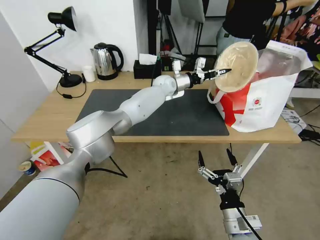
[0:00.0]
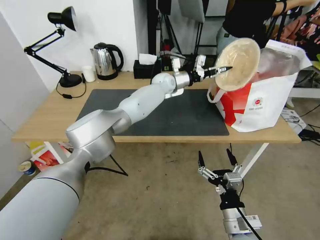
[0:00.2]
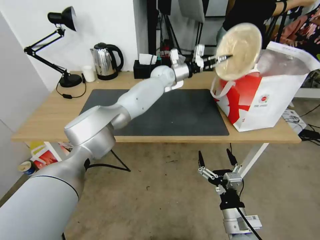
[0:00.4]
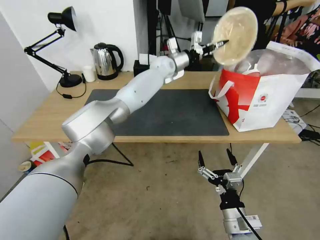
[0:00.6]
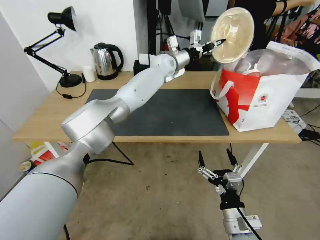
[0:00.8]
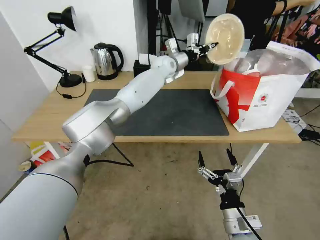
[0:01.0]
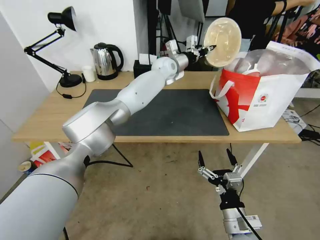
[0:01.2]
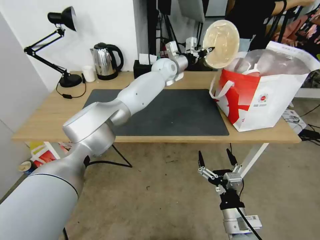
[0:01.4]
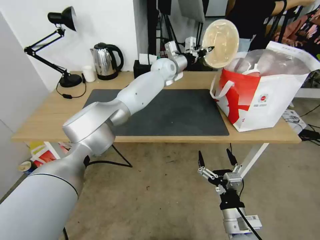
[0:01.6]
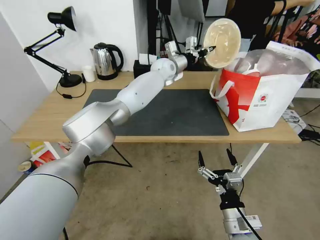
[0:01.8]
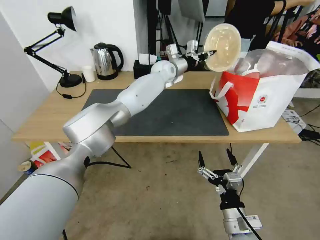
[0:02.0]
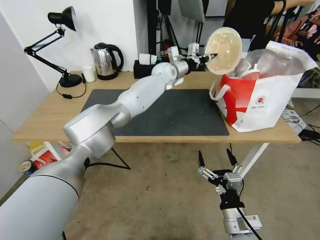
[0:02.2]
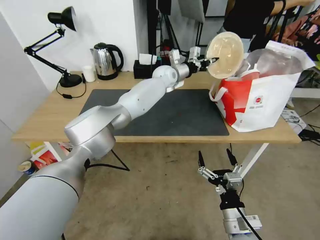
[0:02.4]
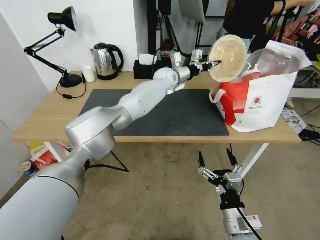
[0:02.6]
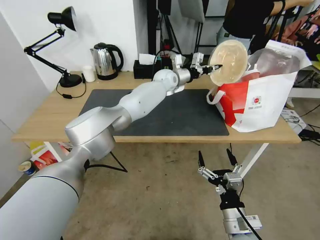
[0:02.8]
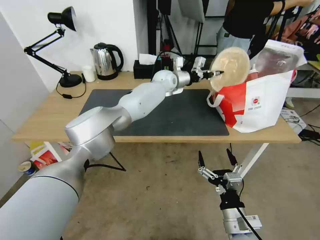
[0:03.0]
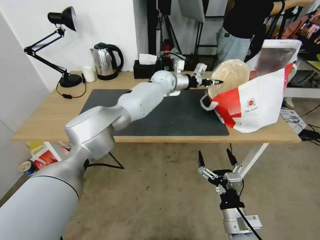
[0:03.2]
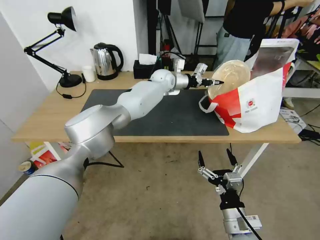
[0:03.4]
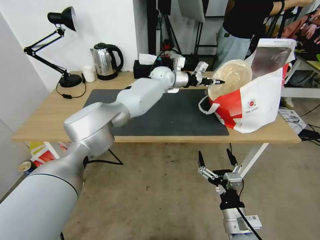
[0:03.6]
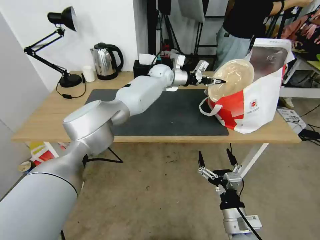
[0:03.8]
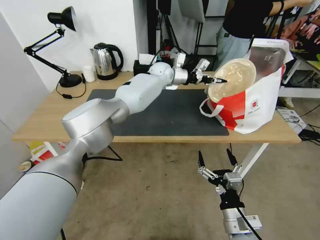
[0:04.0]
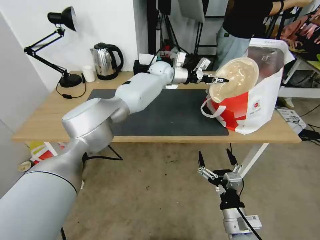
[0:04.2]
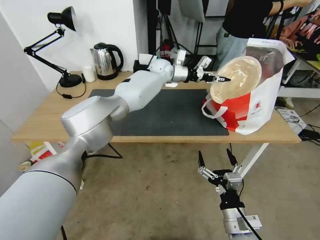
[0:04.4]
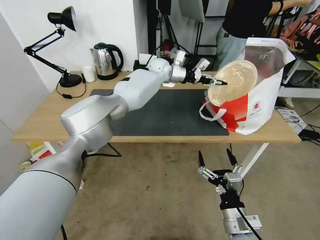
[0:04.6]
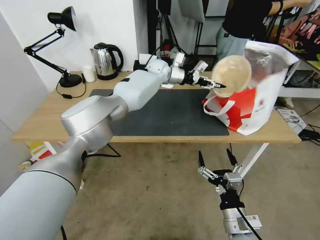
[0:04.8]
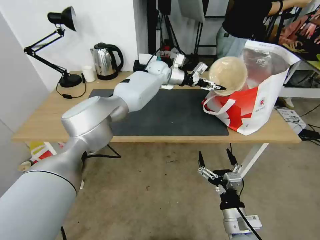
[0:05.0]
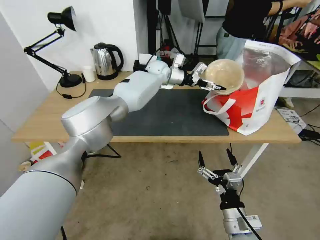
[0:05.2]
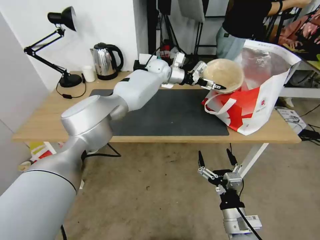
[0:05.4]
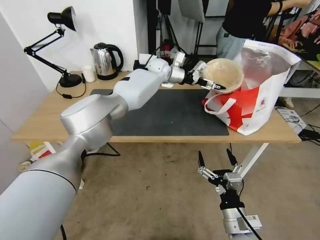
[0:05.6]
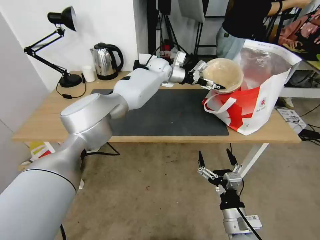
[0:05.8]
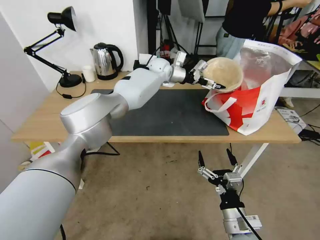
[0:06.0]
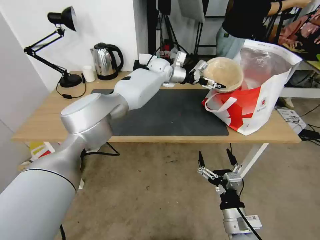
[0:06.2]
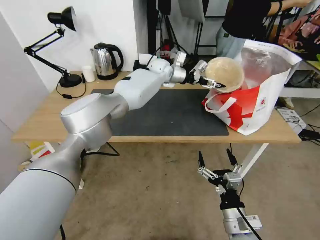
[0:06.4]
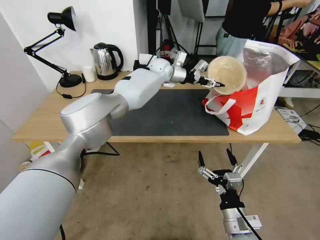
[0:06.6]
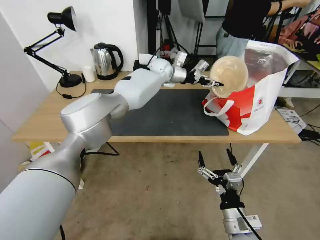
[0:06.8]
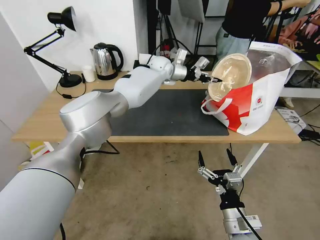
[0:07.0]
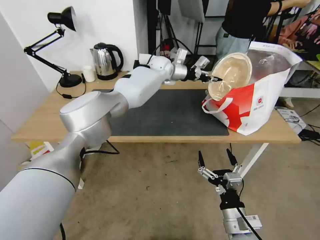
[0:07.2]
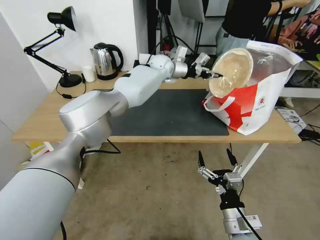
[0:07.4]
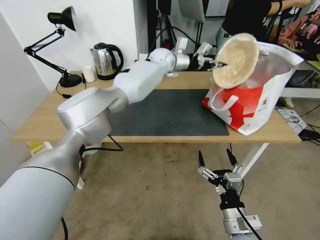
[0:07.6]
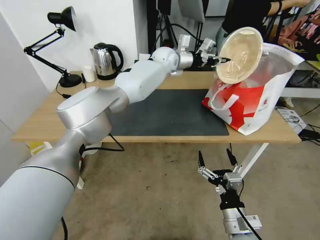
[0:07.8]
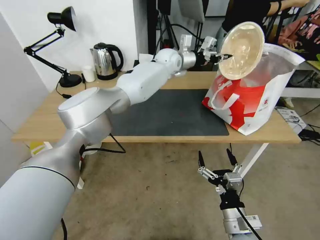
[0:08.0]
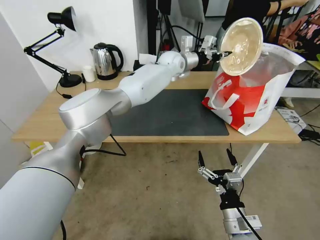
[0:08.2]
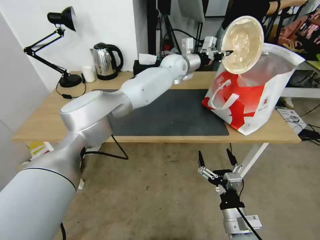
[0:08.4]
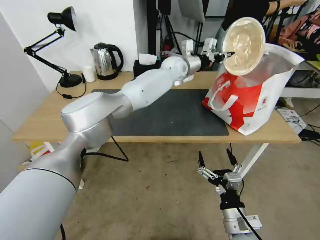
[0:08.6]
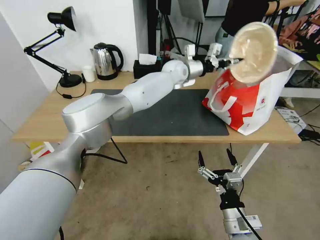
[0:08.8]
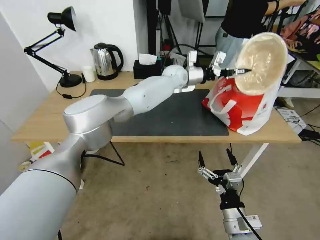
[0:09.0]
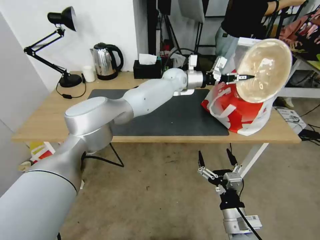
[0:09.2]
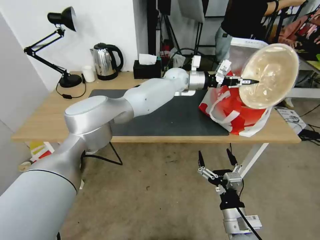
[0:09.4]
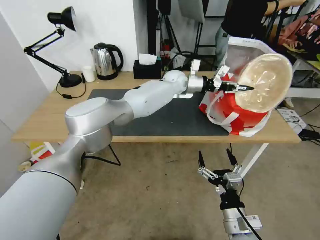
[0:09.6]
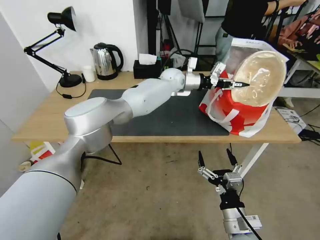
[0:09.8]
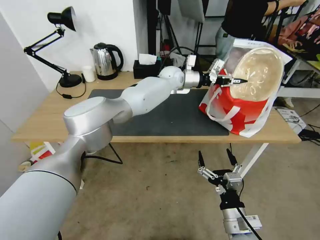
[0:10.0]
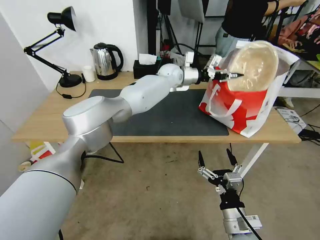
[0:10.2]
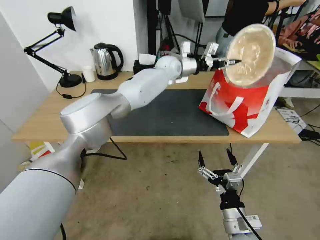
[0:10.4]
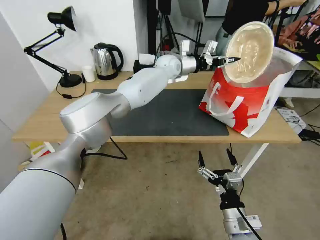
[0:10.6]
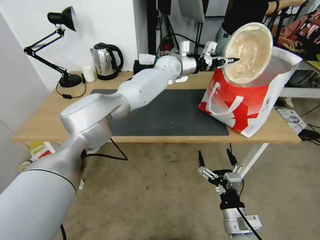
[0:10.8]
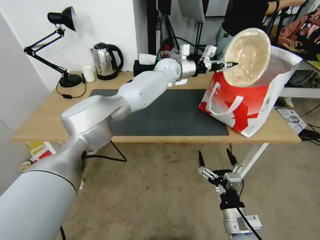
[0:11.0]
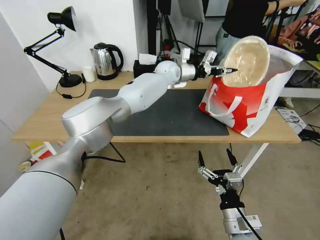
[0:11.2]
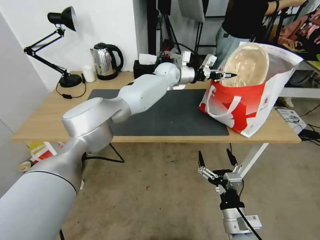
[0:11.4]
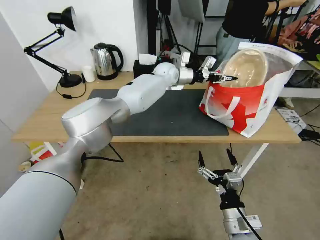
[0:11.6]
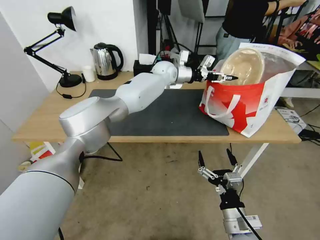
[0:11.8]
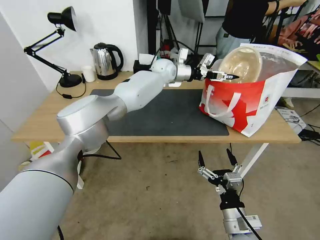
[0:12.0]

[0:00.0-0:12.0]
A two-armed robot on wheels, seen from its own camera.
Task of the whole recording: Pick up the trash from the table and place it into the takeout bag.
0:00.0 to 0:01.6: The left gripper heads upward, covering some 5 cm.
0:01.6 to 0:03.0: The grippers move only a little.
0:04.4 to 0:06.0: The left gripper opens.
0:06.0 to 0:07.6: The left gripper closes.
0:07.6 to 0:09.0: The left gripper travels to the right by roughly 5 cm.
0:09.0 to 0:10.4: There are only small adjustments of the grippers.
0:10.4 to 0:12.0: The left gripper opens.

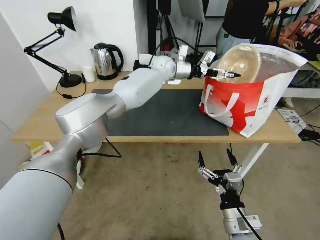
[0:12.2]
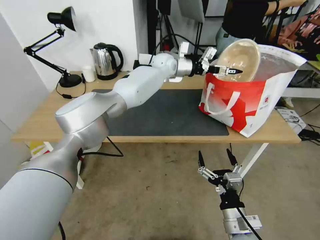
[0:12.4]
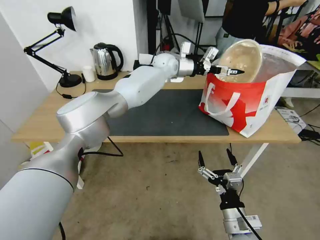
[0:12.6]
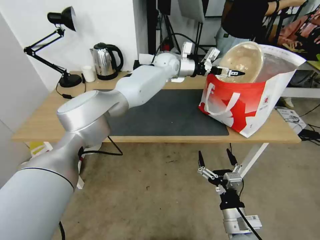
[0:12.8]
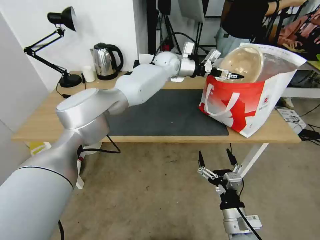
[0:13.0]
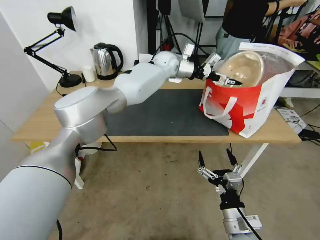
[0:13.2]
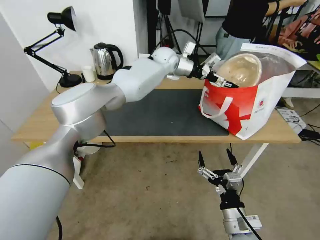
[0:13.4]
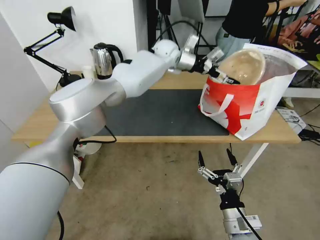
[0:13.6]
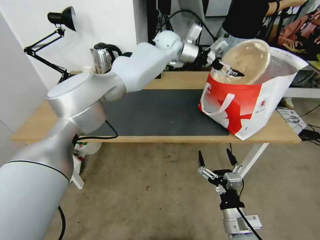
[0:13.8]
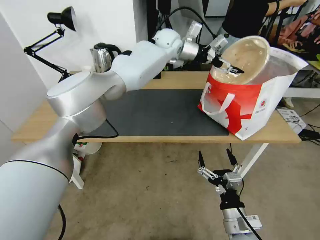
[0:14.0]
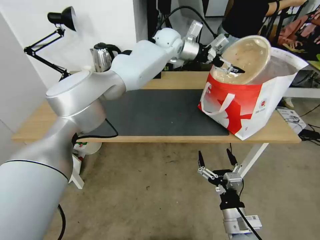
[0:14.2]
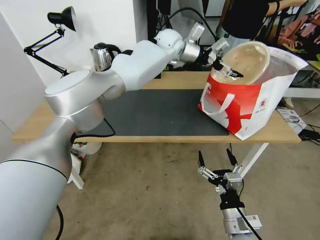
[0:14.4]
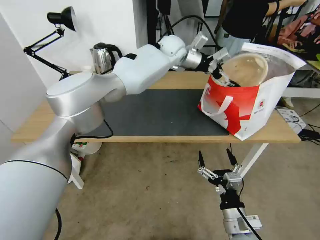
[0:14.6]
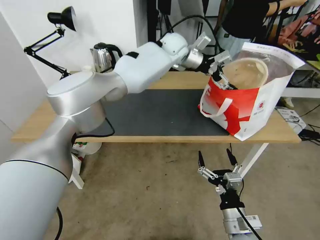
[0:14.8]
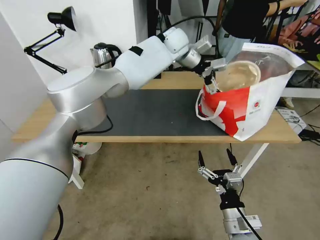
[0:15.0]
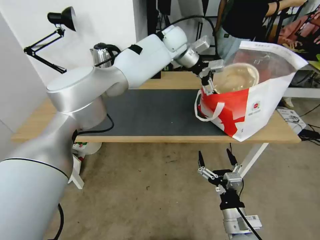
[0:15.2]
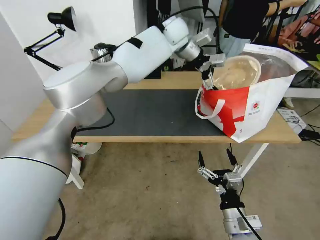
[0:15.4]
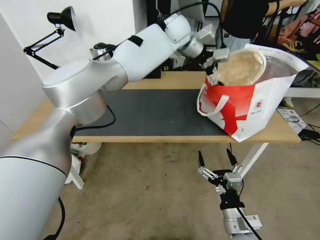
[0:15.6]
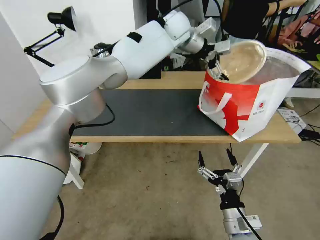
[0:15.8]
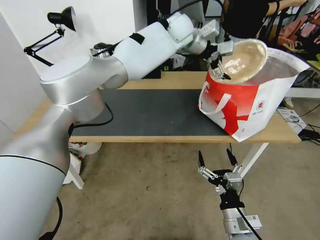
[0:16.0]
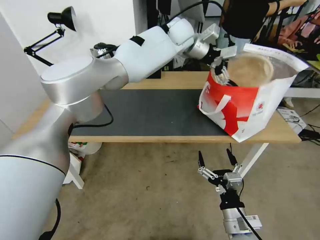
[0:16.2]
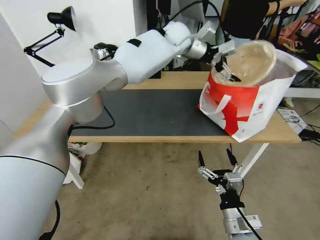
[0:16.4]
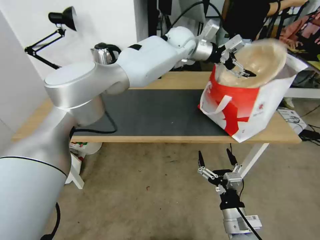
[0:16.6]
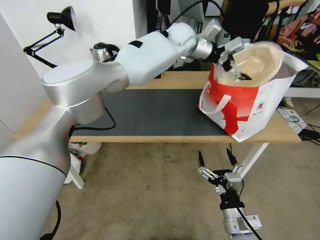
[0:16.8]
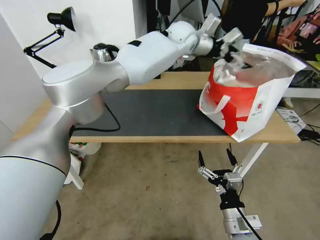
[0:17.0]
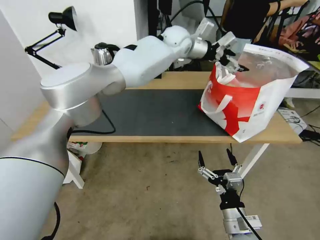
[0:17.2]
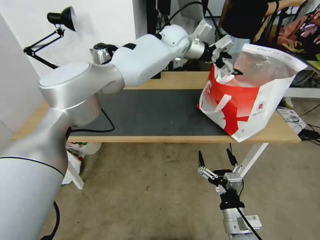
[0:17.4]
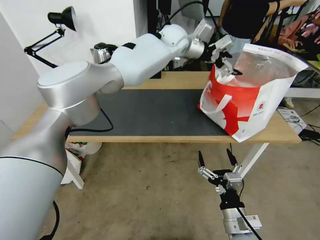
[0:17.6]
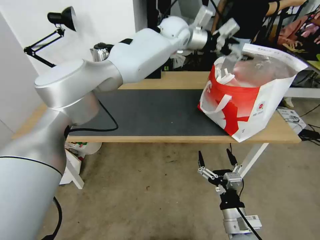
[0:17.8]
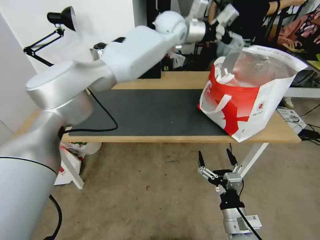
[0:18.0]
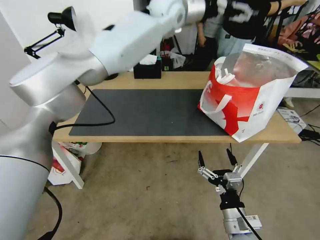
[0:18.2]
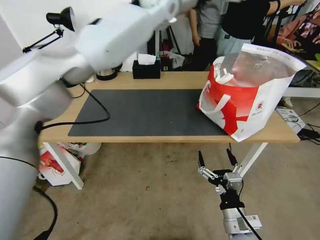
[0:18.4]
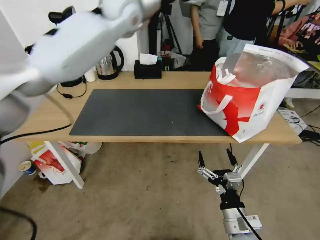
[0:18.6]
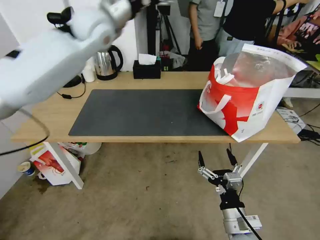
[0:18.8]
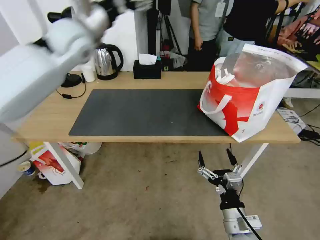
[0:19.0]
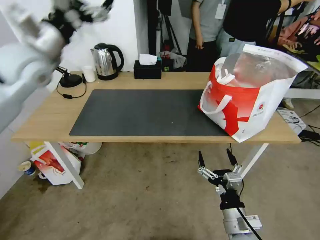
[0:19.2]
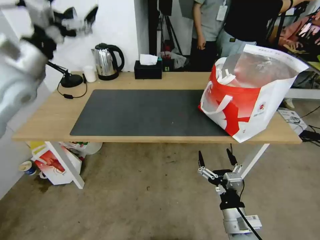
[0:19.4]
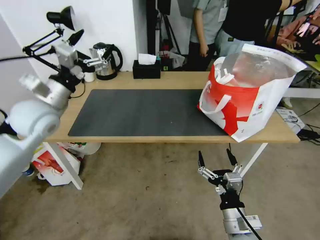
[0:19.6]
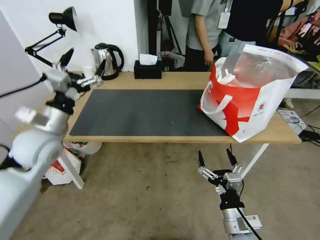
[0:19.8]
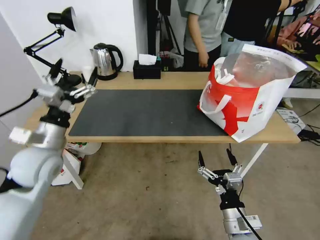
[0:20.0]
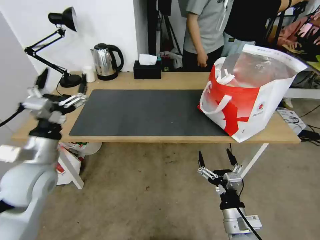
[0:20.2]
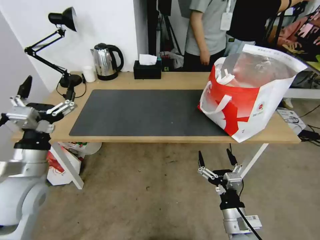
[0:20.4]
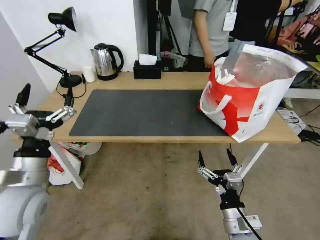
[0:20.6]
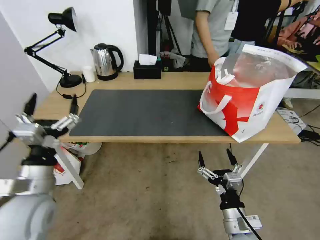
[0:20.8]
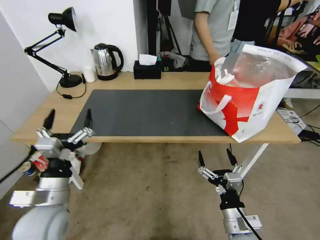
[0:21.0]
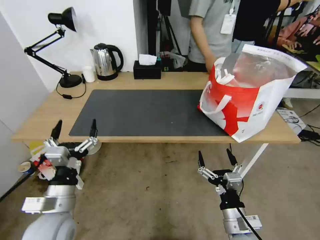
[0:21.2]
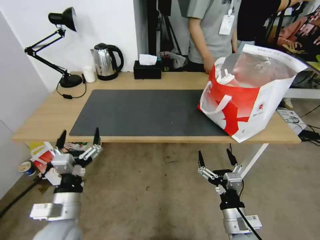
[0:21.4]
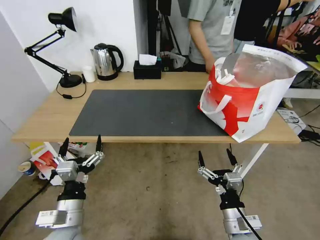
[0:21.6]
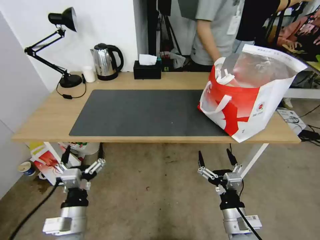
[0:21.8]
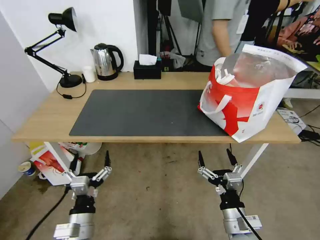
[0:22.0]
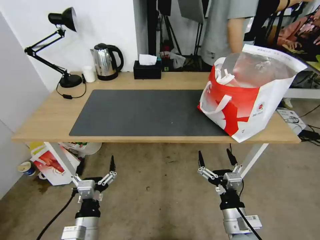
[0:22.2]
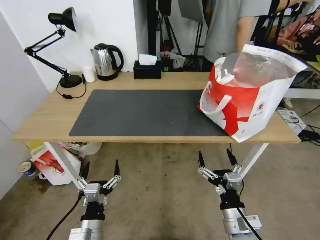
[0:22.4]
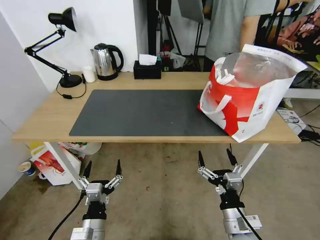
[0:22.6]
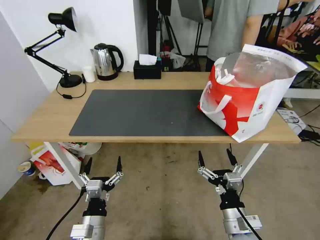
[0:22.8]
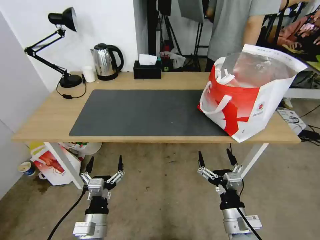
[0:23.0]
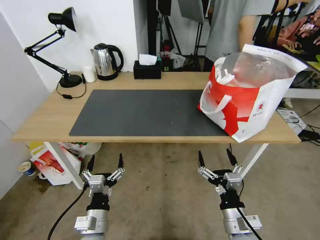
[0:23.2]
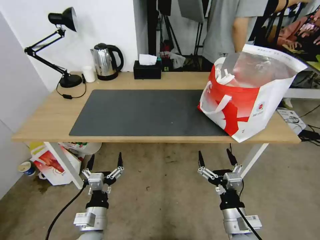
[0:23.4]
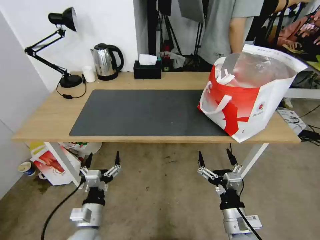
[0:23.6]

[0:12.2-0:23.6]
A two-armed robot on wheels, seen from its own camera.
Task of the whole recording: Pick up the trash from the table and place it into the takeout bag.
0:12.2 to 0:13.6: The left gripper heads upward, covering some 5 cm.
0:15.0 to 0:16.4: The grippers stay close to where they were, moving slightly.
0:16.4 to 0:17.8: The grippers stay close to where they were, moving slightly.
0:17.8 to 0:19.4: The left gripper is displaced to the left and backward by about 50 cm.
0:19.4 to 0:20.8: The left gripper is displaced backward and downward by roughly 25 cm.
0:20.8 to 0:22.2: The left gripper goes approximately 20 cm downward, to the right and backward.
0:22.2 to 0:23.6: There are only small adjustments of the grippers.
